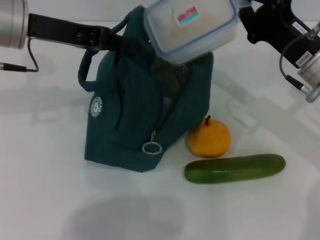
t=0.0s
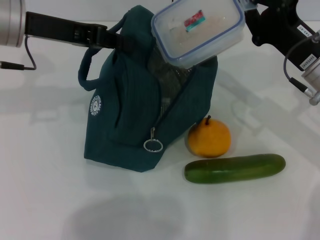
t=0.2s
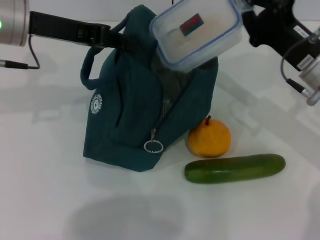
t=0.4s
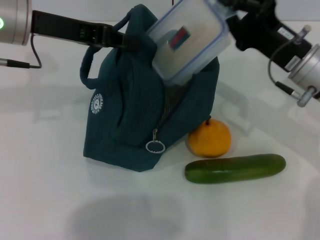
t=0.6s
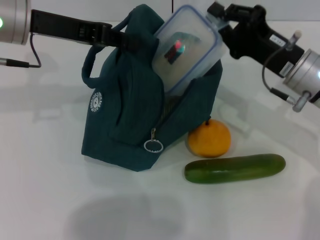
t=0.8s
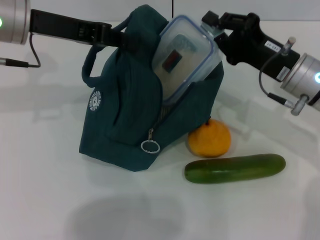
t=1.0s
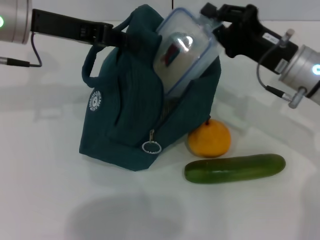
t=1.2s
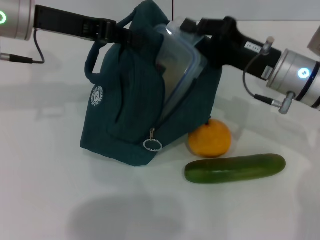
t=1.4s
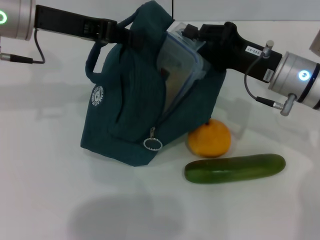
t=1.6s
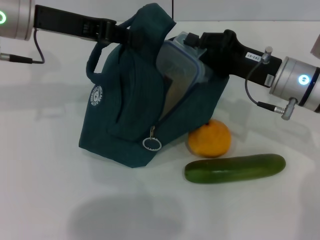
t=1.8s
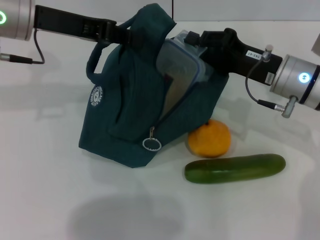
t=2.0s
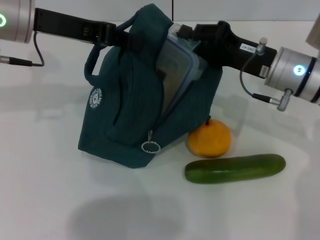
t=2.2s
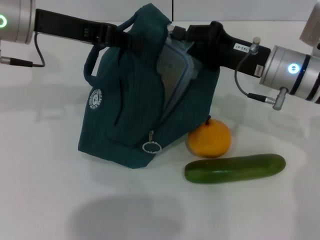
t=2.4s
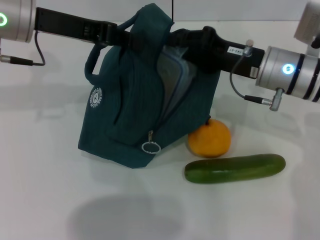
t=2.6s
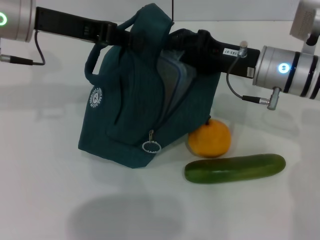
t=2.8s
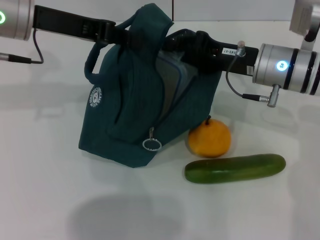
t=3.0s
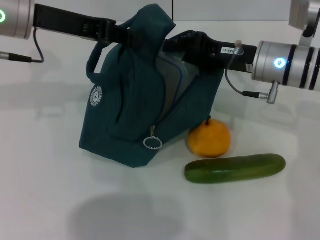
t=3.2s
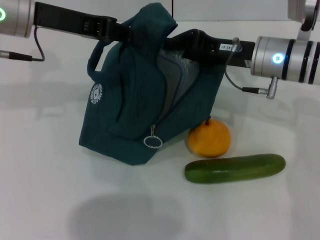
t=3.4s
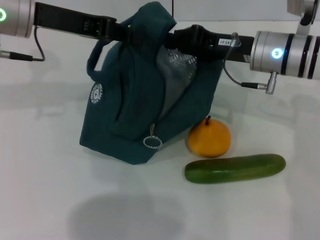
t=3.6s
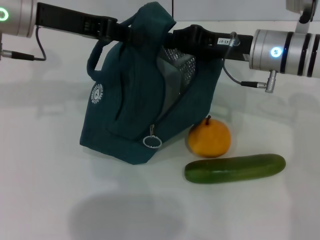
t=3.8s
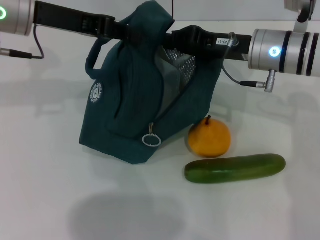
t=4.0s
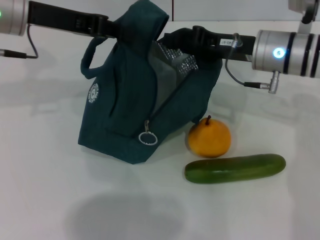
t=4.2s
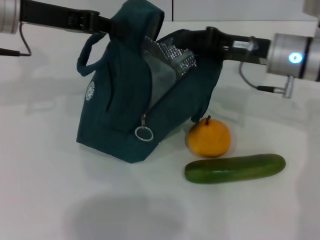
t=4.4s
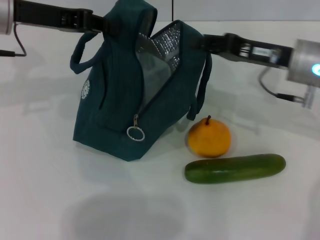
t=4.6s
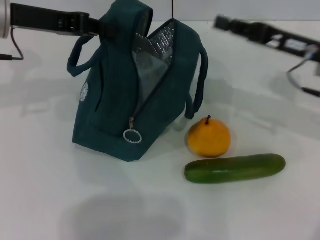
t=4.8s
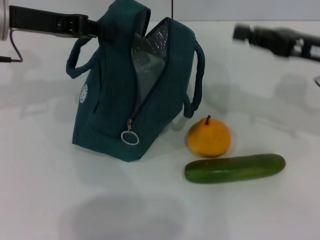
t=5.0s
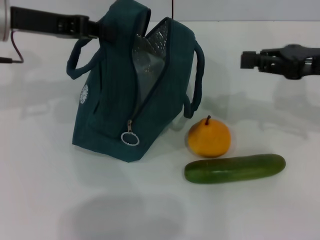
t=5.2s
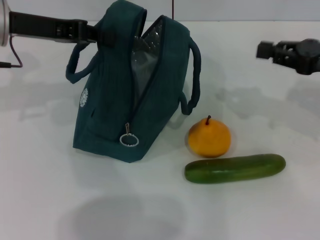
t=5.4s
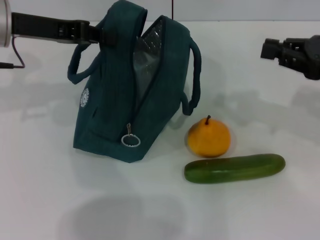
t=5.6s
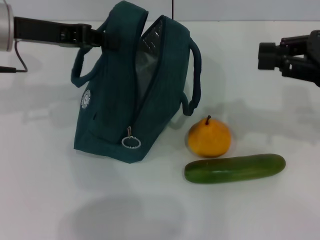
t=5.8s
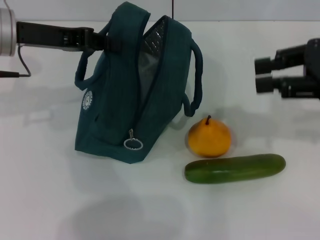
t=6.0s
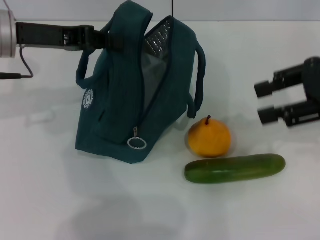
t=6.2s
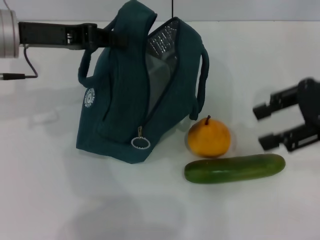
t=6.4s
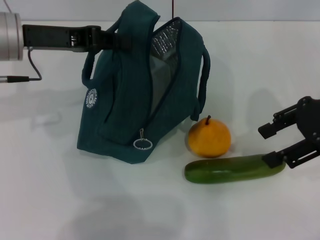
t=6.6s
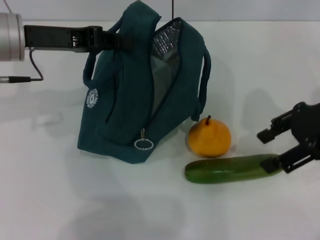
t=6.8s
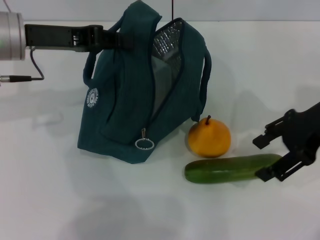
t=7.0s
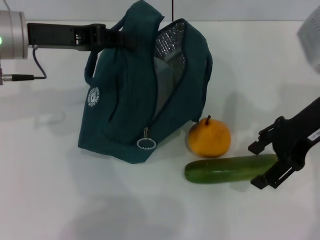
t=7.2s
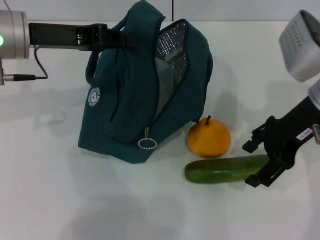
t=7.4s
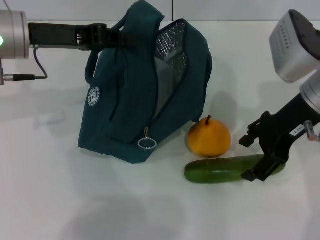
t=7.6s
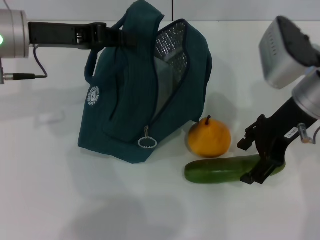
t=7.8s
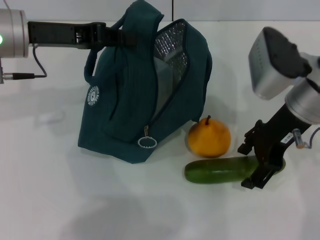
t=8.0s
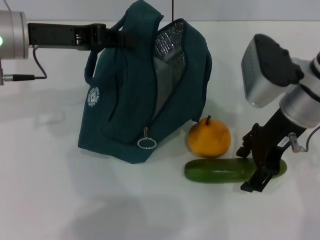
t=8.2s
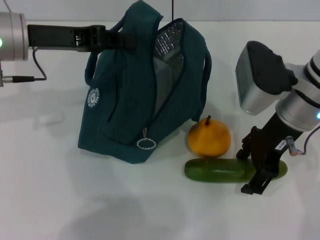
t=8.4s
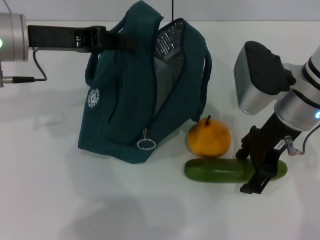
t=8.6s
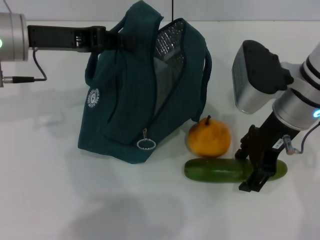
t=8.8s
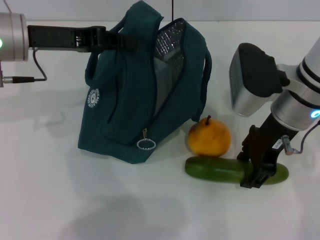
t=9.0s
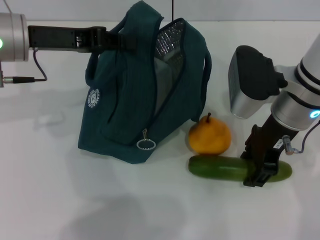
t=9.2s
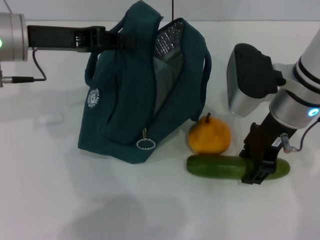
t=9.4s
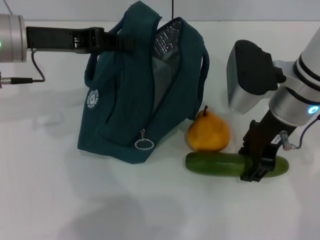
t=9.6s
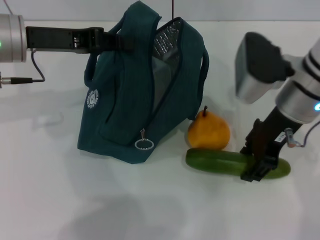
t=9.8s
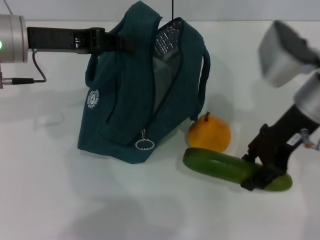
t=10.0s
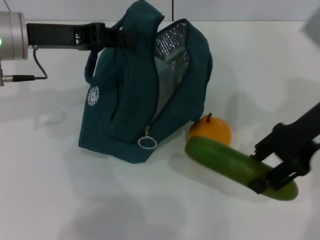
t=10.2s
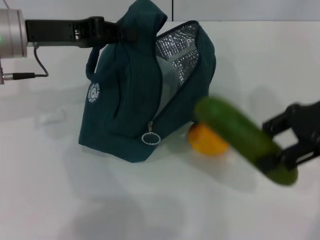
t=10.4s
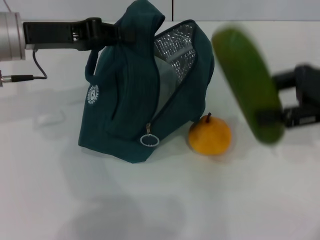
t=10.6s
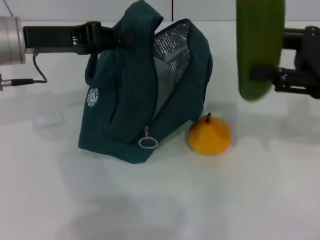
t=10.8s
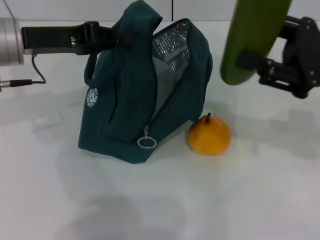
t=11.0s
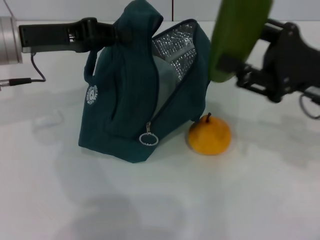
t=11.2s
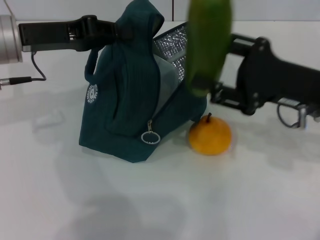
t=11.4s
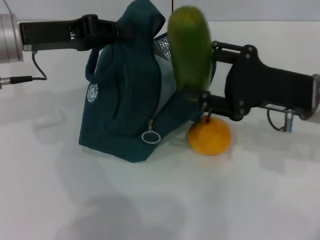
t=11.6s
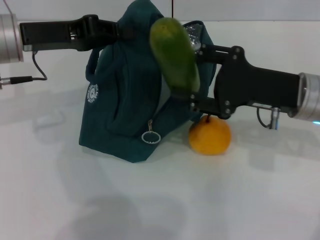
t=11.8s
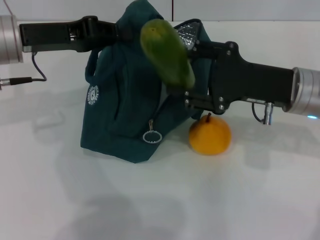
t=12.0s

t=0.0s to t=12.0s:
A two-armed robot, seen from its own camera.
Step, t=0.0s to t=3.6s: Place the lunch box into the lunch bag with your right hand.
Step, t=4.0s to t=9.2s: Pick up the cucumber with your right hand.
t=1.6s to t=3.0s: The grippers make only small movements.
t=3.0s to t=4.4s: The grippers stay close to where they were, moving slightly.
t=4.4s to t=6.0s: The right gripper shifts approximately 15 cm to the right, upward and backward.
t=6.0s to t=7.6s: The right gripper moves to the left and downward, about 10 cm, and opens up.
t=7.6s to t=9.0s: There are only small adjustments of the grippers.
t=9.0s to t=10.4s: The right gripper travels to the right by roughly 10 cm.
t=10.4s to t=12.0s: The right gripper moves to the left and downward, some 10 cm.

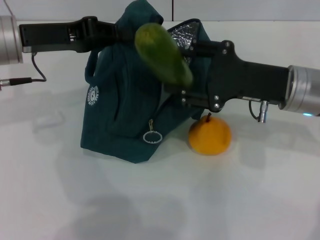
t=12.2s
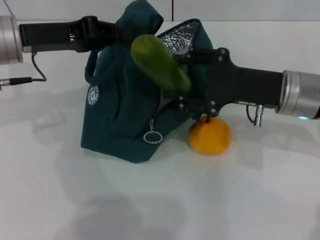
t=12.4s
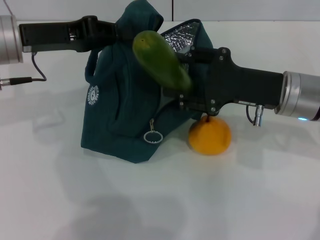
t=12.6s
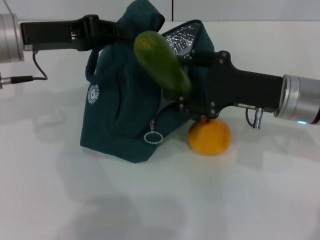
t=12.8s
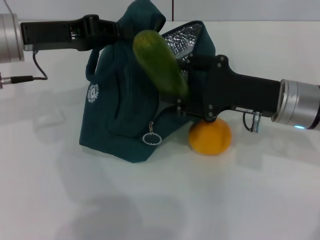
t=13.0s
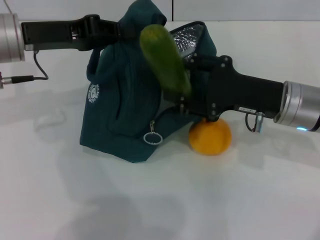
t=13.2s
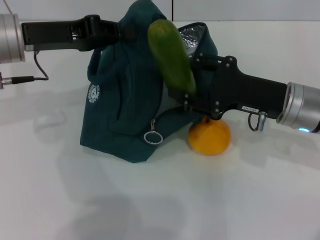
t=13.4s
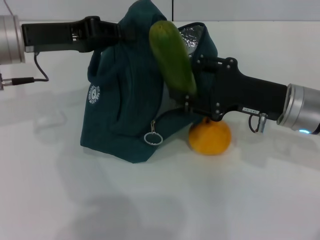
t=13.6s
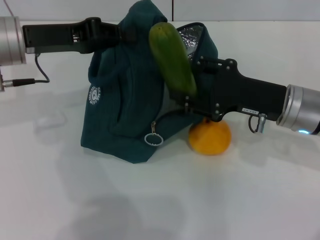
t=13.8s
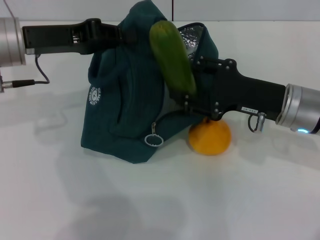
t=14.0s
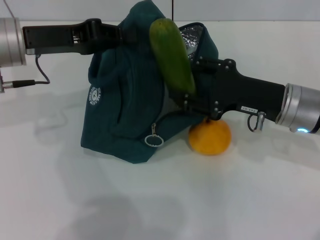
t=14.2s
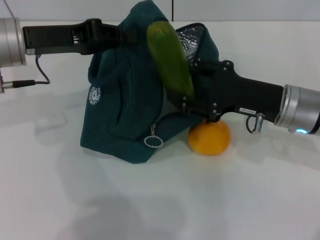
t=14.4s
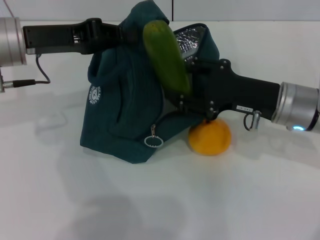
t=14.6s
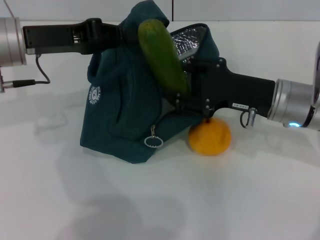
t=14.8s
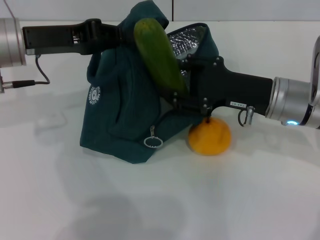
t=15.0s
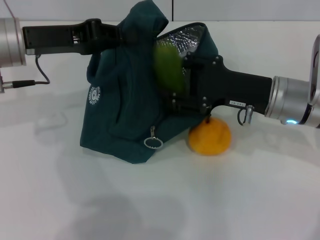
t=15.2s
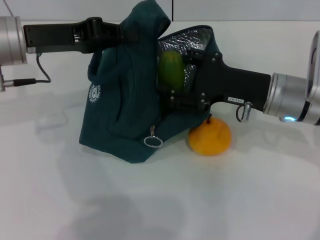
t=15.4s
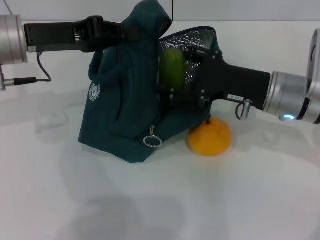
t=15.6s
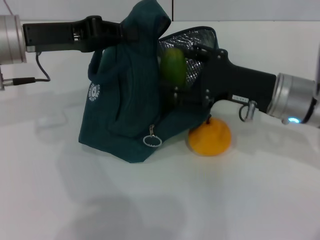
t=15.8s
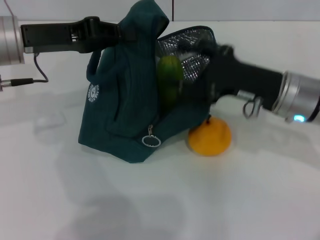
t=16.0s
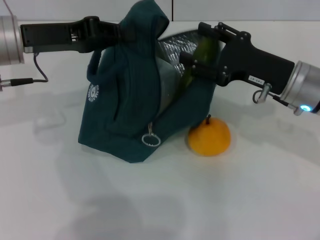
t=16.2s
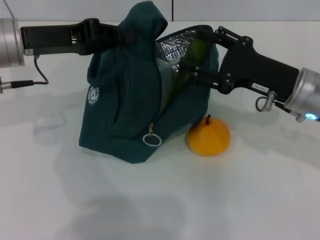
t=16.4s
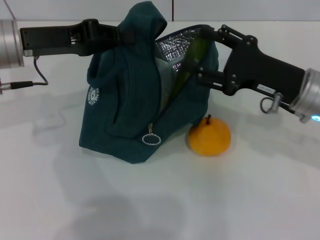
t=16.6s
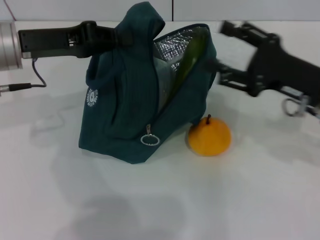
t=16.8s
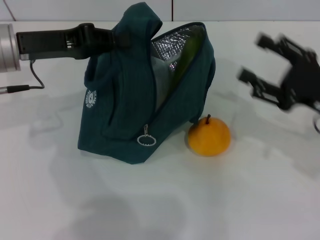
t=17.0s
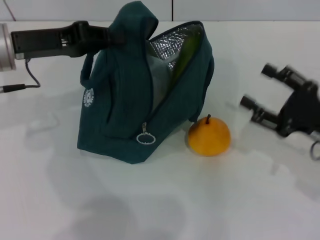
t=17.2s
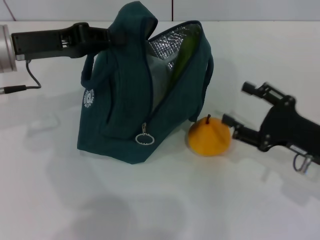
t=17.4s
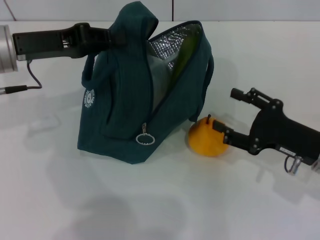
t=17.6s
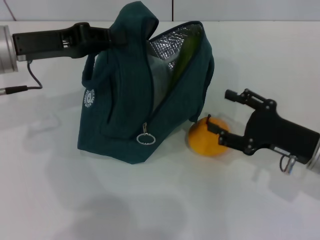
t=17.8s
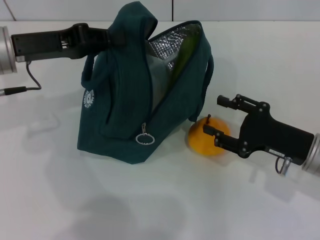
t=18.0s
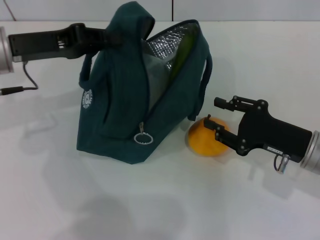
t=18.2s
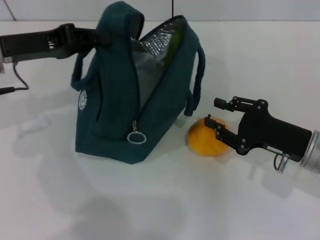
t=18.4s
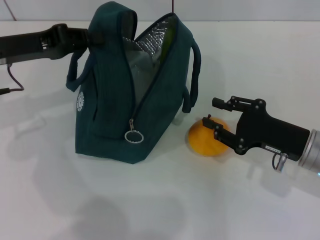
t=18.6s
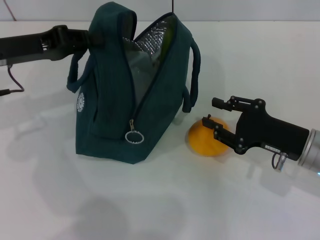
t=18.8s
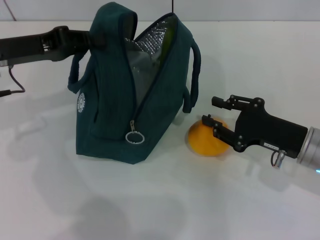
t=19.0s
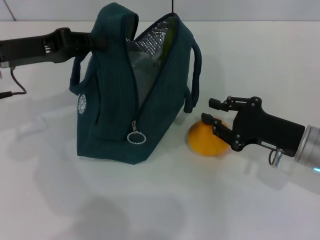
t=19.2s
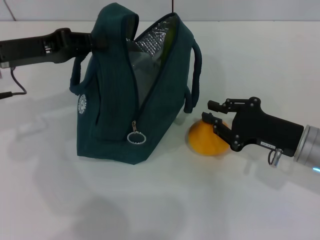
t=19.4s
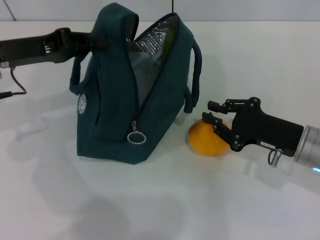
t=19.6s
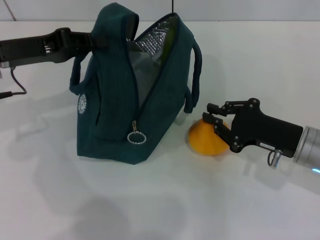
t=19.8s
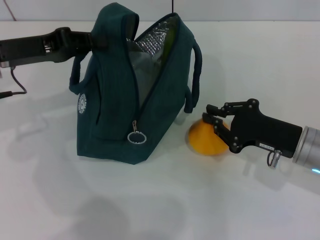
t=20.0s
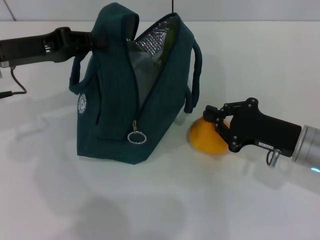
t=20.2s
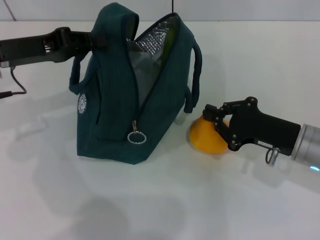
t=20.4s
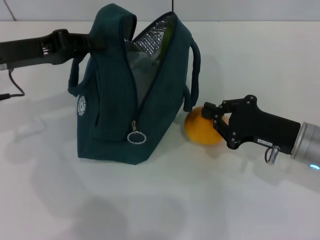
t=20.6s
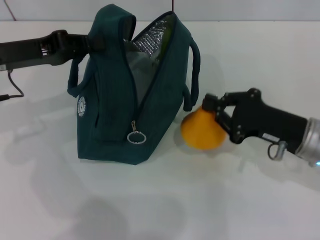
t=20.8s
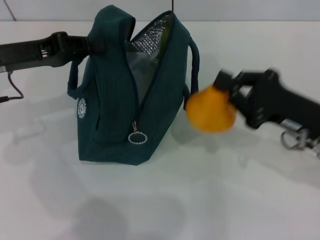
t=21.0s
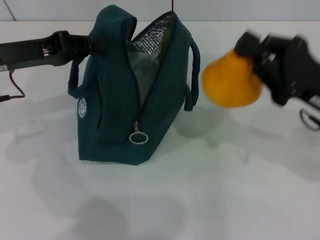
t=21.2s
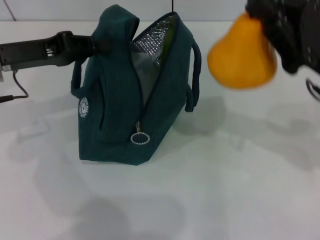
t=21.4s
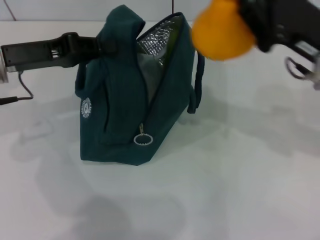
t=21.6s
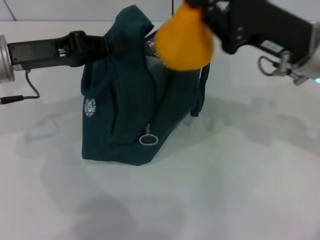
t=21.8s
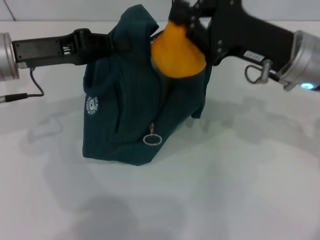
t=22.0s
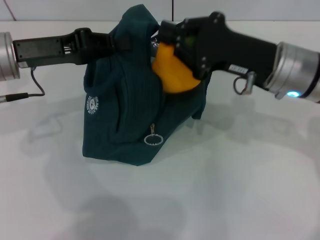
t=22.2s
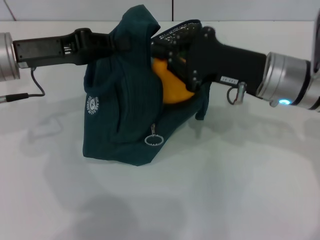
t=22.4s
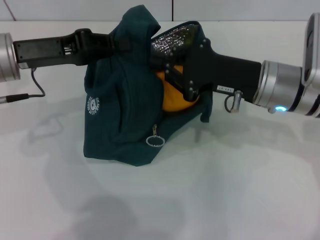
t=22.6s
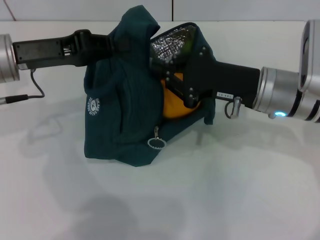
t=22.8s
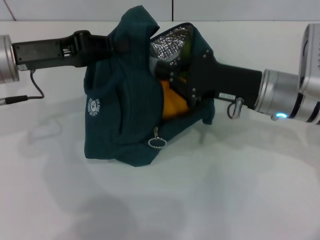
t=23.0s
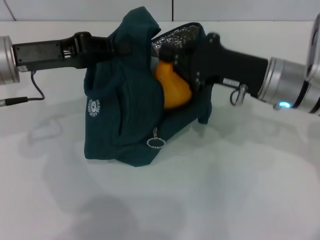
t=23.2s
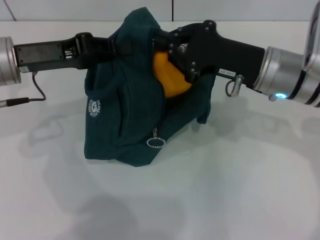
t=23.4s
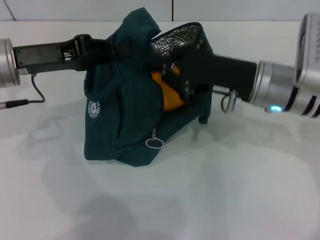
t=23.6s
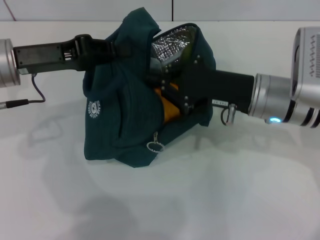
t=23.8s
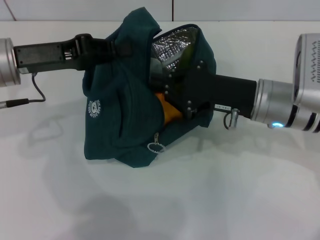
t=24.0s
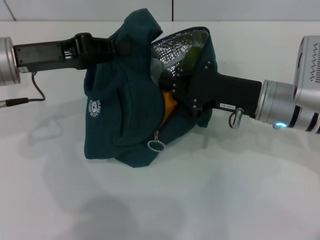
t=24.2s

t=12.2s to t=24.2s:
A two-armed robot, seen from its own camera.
Step, t=12.2s to t=16.4s: Put the cucumber into the lunch bag with your right hand.
Step, t=16.6s to t=20.4s: Grab the pear with your right hand.
t=12.2s to t=13.8s: The grippers stay close to where they were, moving slightly.
t=13.8s to t=16.6s: The grippers move only a little.
t=16.6s to t=18.2s: The right gripper heads downward, covering some 5 cm.
t=18.2s to t=19.8s: The right gripper closes its fingers.
t=19.8s to t=21.2s: The right gripper is displaced upward by roughly 5 cm.
t=21.2s to t=22.6s: The right gripper travels to the left and forward by roughly 10 cm.
t=22.6s to t=24.2s: The grippers make only small movements.
